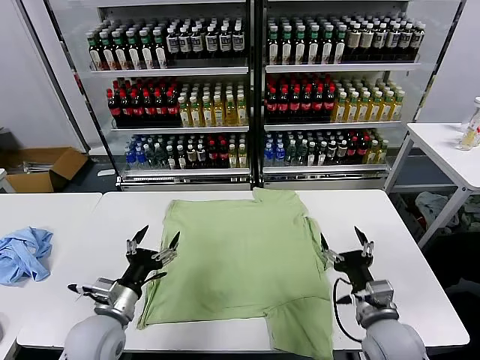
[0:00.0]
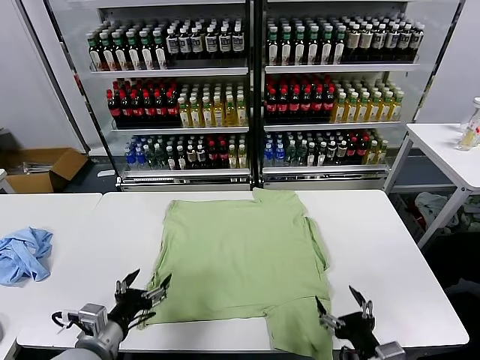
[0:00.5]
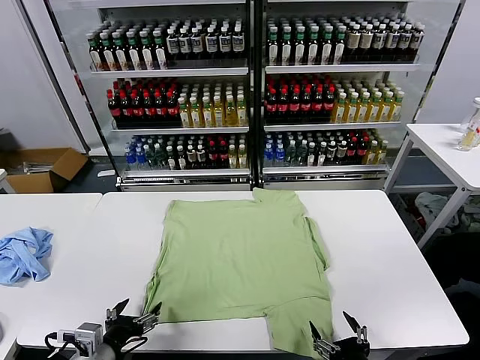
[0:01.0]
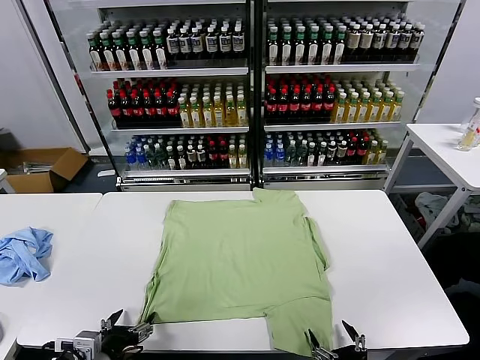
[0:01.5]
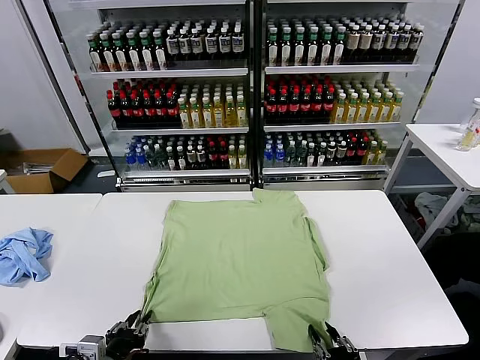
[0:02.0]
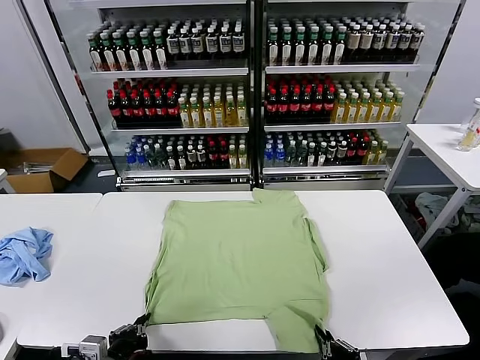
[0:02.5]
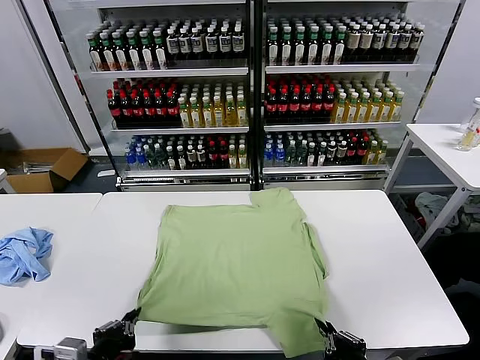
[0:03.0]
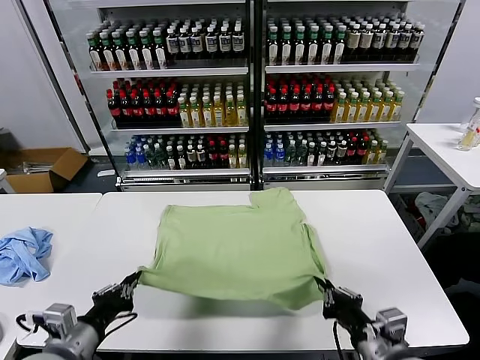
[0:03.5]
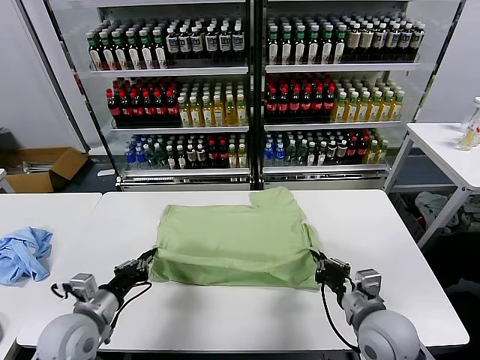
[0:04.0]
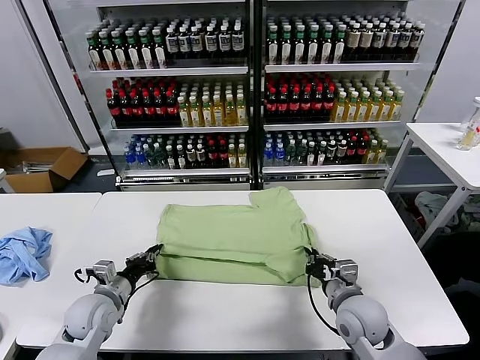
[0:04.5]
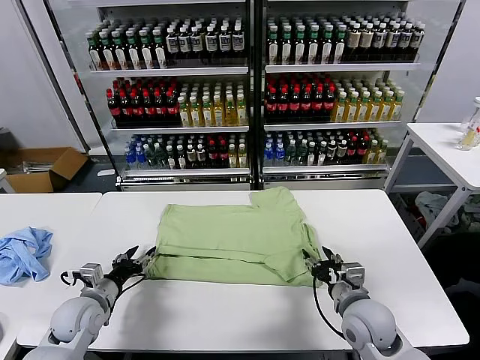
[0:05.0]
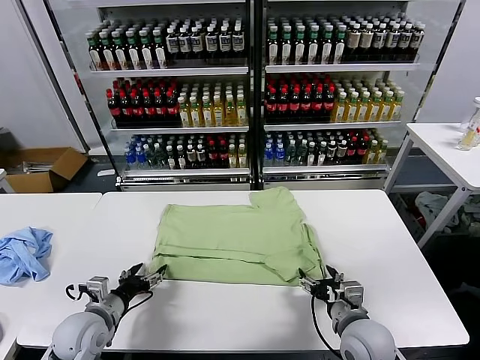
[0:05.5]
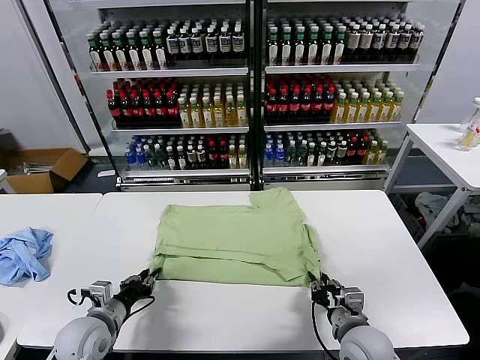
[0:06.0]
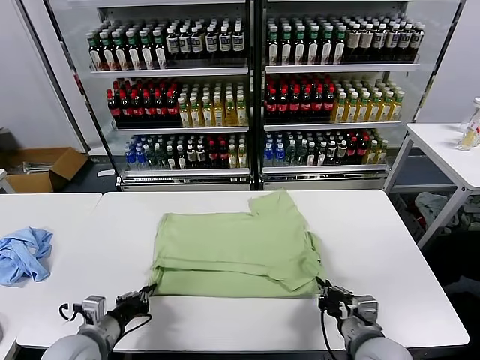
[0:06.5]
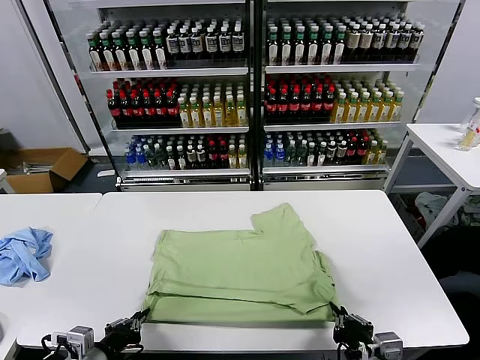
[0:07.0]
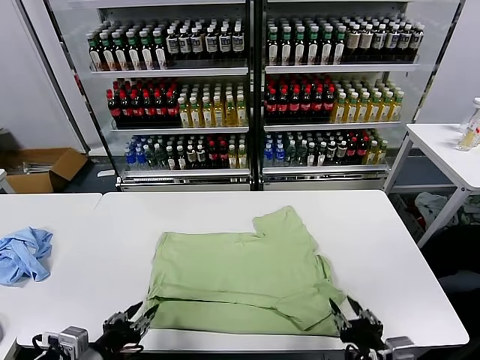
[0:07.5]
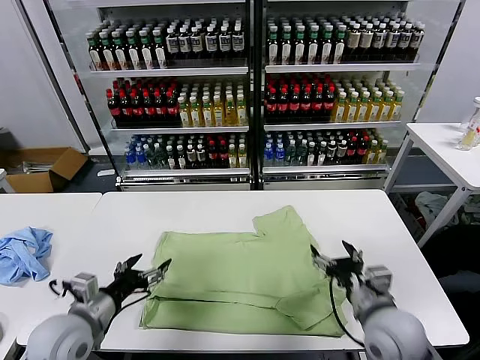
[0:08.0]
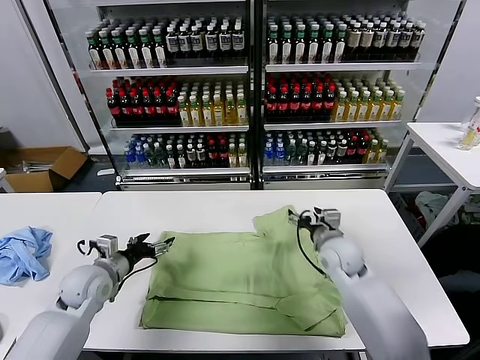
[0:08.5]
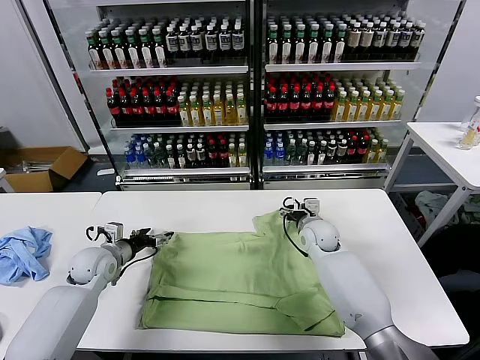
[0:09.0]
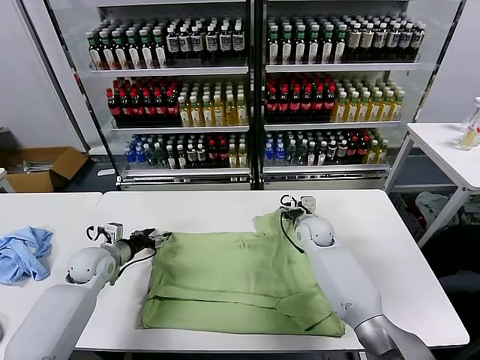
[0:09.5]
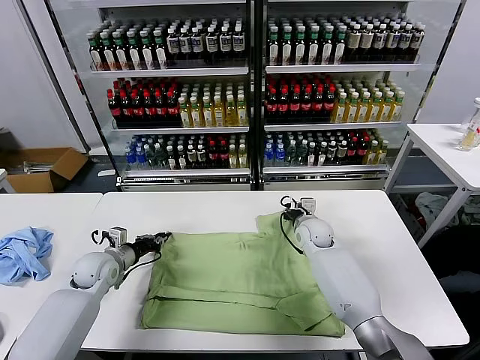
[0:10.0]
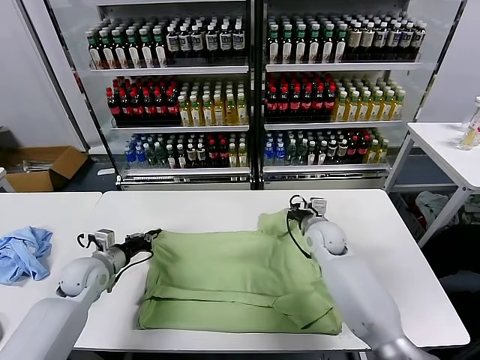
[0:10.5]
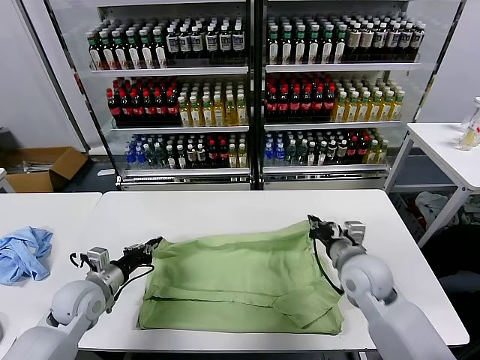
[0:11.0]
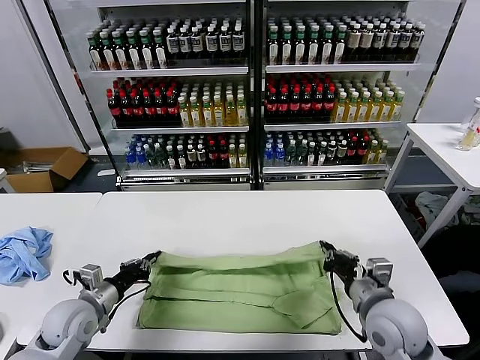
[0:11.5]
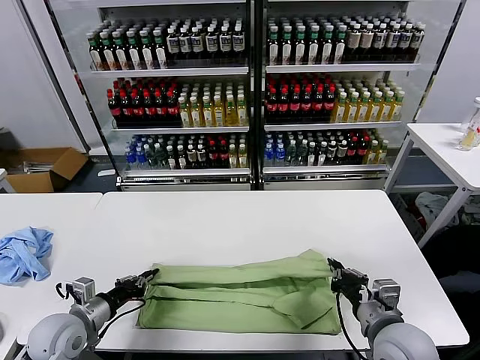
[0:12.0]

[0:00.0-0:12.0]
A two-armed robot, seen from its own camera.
Task of the whole recording: fold and organize the clothes.
Step, 0:00.0 to 0:02.5: use both grippers simultaneously to clamp the lower edge of the clothing fabric.
Step, 0:03.0 to 0:05.0: use both grippers to drag the lower edge of the fabric forward and fold it over the upper edge.
Step, 0:05.5 to 0:07.0: Drag the clothes downward with both gripper.
Step, 0:08.0 to 0:10.0: use both grippers simultaneously to clamp the upper edge of the clothing fabric.
0:02.0 to 0:04.0: The left gripper travels forward by some 10 cm, and closes up, while the right gripper is displaced forward by roughly 15 cm, and closes up.
0:04.0 to 0:06.0: The two grippers go some 5 cm downward. The left gripper opens, then closes again. The right gripper opens, then closes once more.
0:06.0 to 0:08.0: The two grippers go about 10 cm upward. The right gripper travels backward and back again, about 10 cm each way, and opens its fingers. Meanwhile the left gripper travels backward and back again, approximately 10 cm each way, and opens its fingers.
0:08.0 to 0:10.0: The right gripper moves forward, approximately 25 cm, and closes. Meanwhile the left gripper moves forward and downward, roughly 20 cm, and closes.
0:10.0 to 0:12.0: The right gripper moves backward, approximately 30 cm. The left gripper moves backward, about 15 cm.

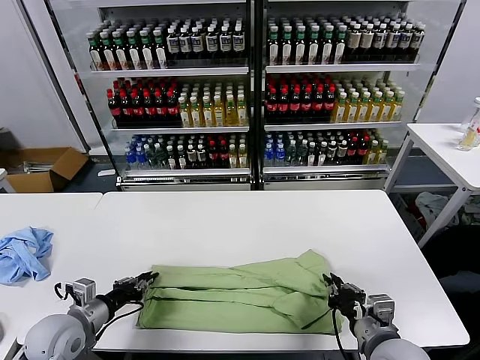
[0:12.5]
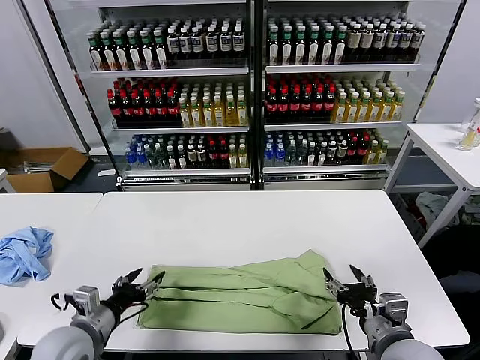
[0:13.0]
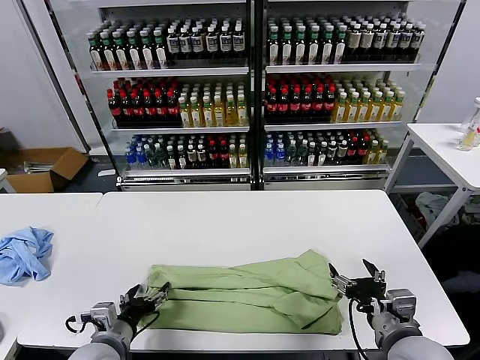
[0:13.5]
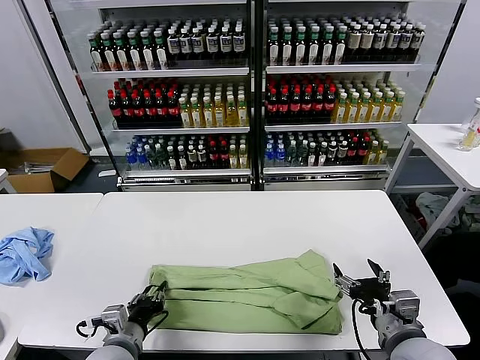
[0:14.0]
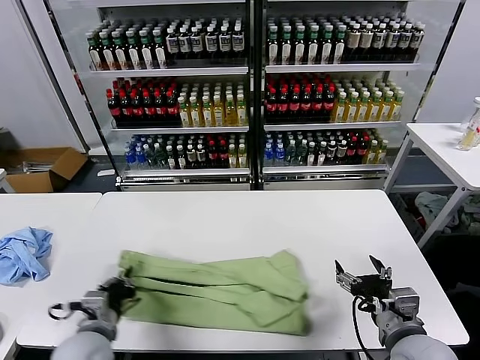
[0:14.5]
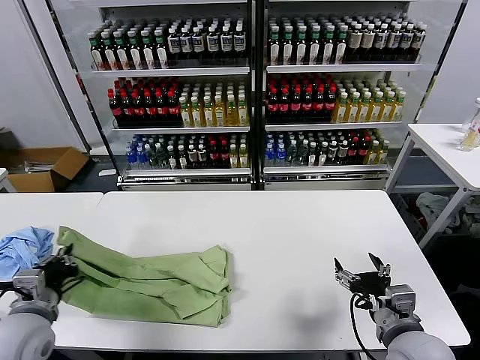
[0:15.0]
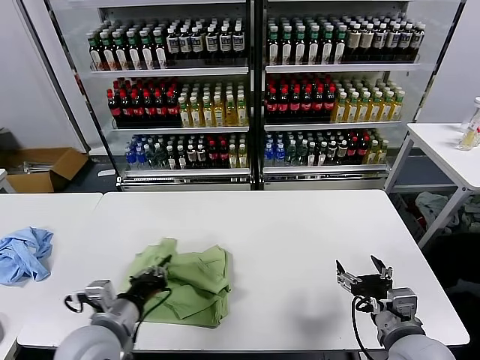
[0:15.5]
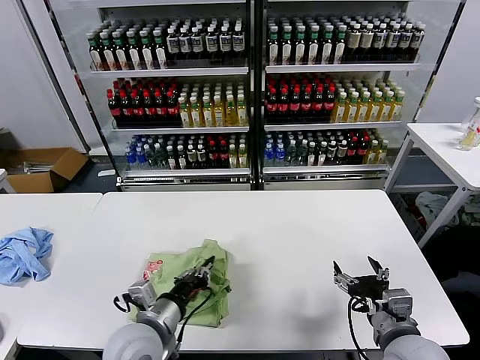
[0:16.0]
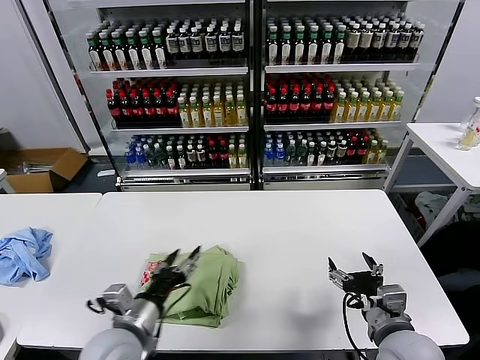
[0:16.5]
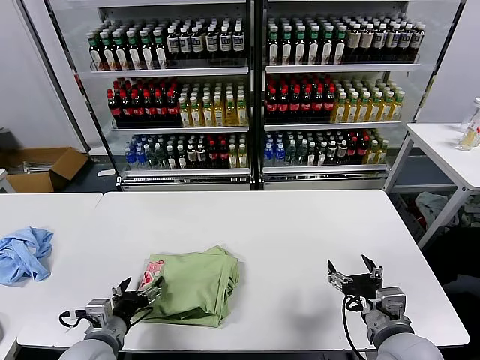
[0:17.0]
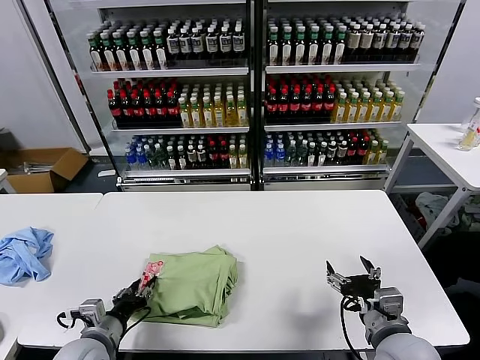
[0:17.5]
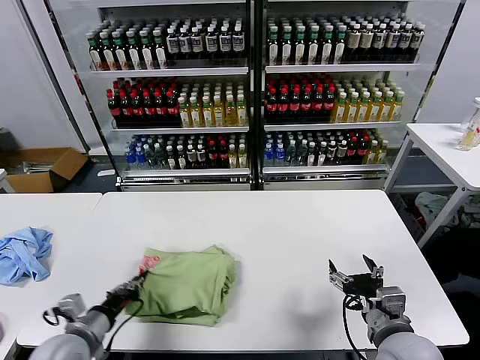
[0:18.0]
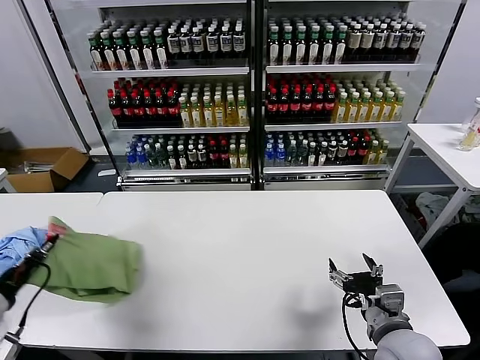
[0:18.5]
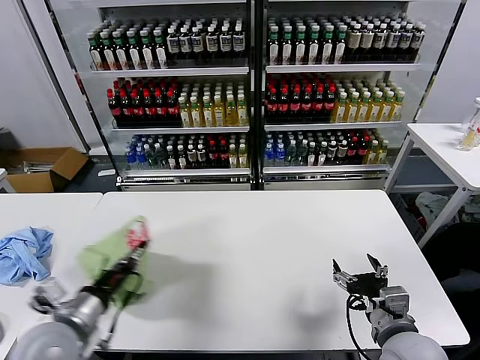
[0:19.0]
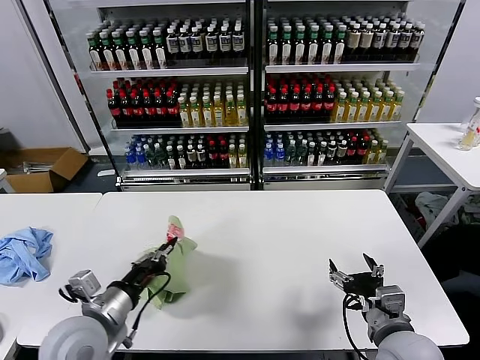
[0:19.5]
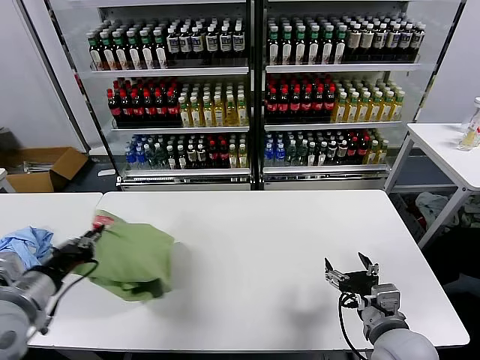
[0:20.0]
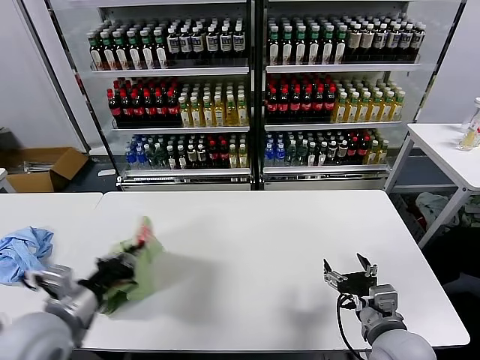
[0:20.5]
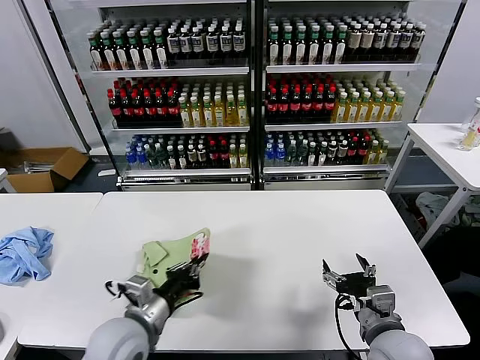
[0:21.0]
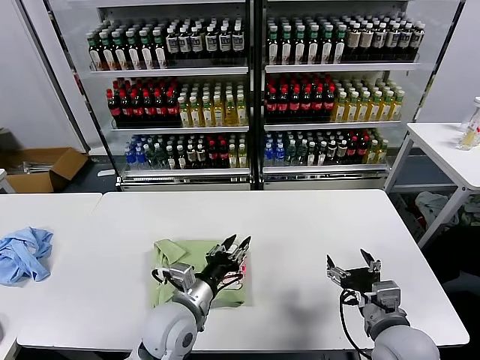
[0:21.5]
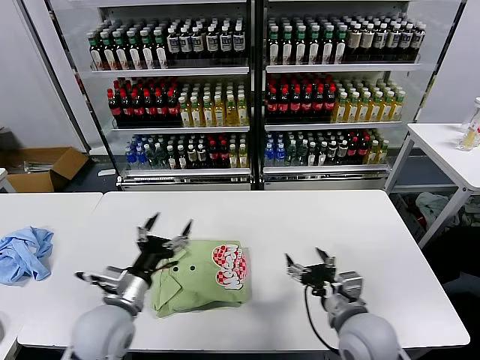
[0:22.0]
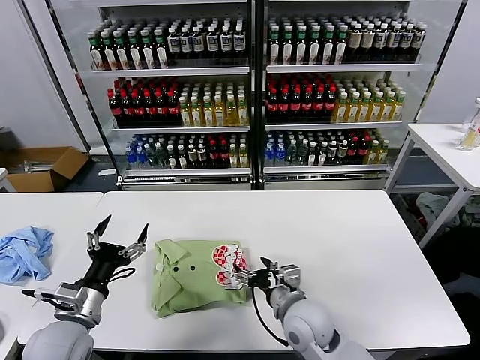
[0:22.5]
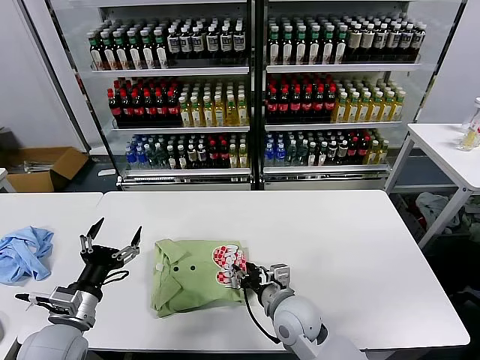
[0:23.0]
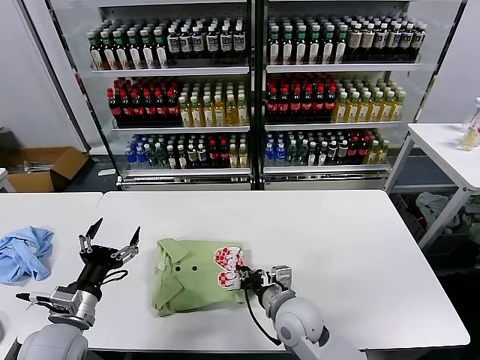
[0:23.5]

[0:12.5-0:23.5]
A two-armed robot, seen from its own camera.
Task of the whole recording: fold and organize the clothes.
Step, 0:13.0 to 0:14.0: use the left gripper to clamp the left edge of the fabric.
Step, 0:14.5 to 0:16.0: use the left gripper to drag the left edge of the fabric to the left and folds it over the right edge.
Step, 0:16.5 to 0:21.5: Flip the folded clothes over with left gripper.
0:12.5 to 0:14.5: The left gripper is displaced to the right by about 10 cm, and opens and closes again. The right gripper opens up.
0:14.5 to 0:16.0: The left gripper goes some 10 cm to the right.
0:16.0 to 0:18.0: The left gripper heads to the left, covering approximately 15 cm, and opens and closes again.
0:18.0 to 0:20.0: The left gripper moves left and right over about 20 cm, changing direction 2 times.
0:20.0 to 0:21.5: The left gripper goes some 25 cm to the right and downward, and opens.
0:21.5 to 0:23.5: The right gripper heads to the left, forward and downward, covering approximately 20 cm, and closes. The left gripper goes about 20 cm to the left, and opens its fingers.

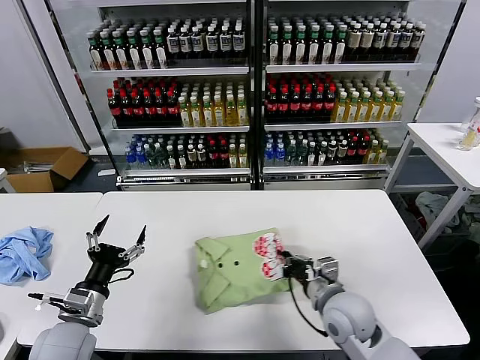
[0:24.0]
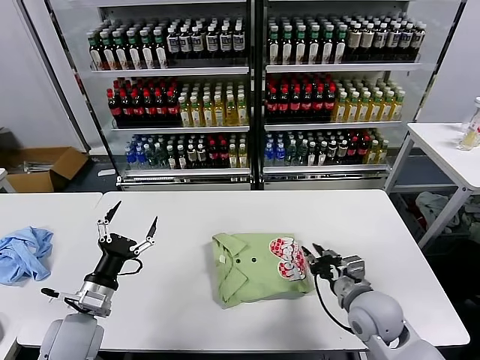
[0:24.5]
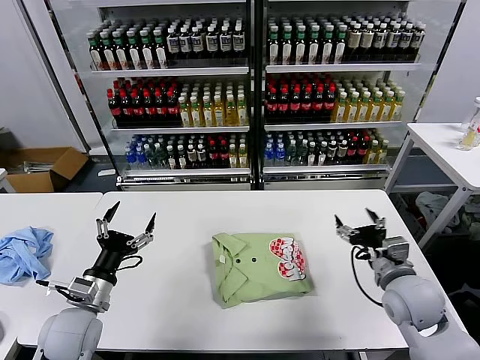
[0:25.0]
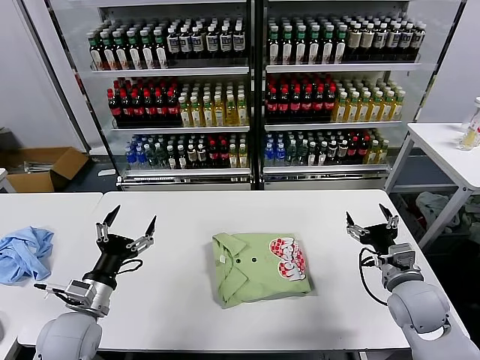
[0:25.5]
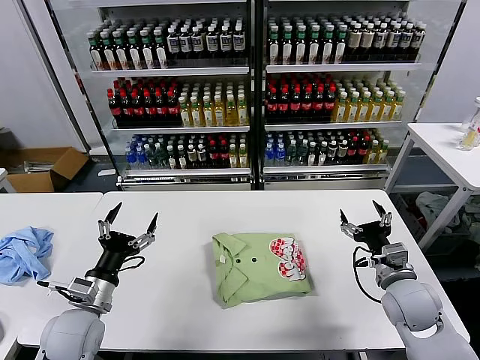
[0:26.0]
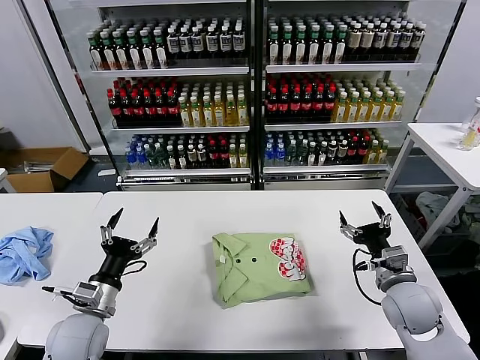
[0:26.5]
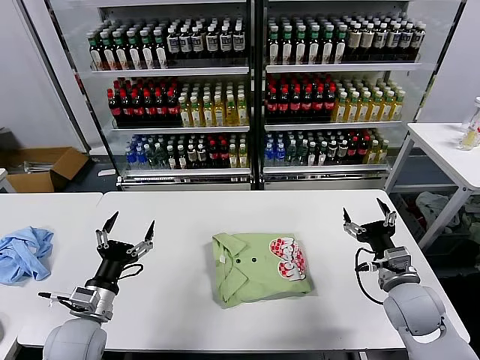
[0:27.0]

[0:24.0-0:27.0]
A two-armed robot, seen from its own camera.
Task of the whole recording: fold and organize the clothes.
0:24.0 to 0:25.5: The right gripper is displaced to the right by about 15 cm, and opens.
0:25.5 to 0:27.0: The grippers move only a little.
